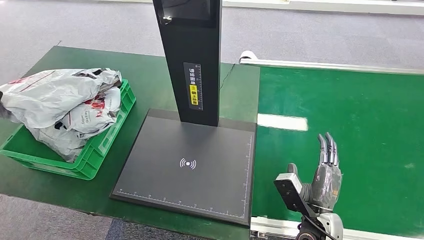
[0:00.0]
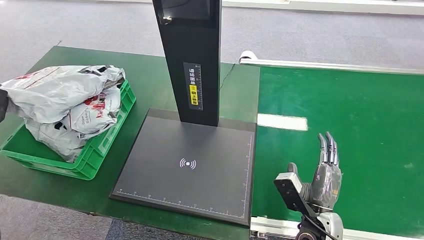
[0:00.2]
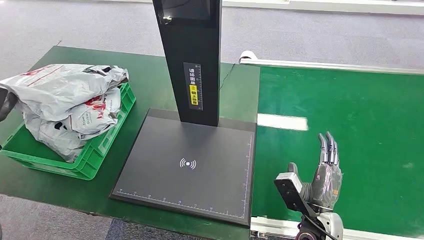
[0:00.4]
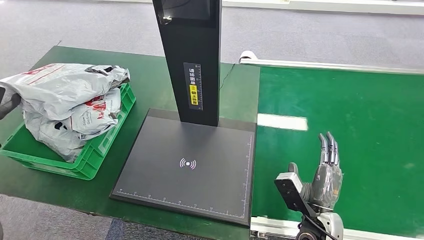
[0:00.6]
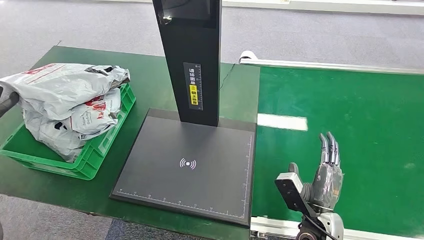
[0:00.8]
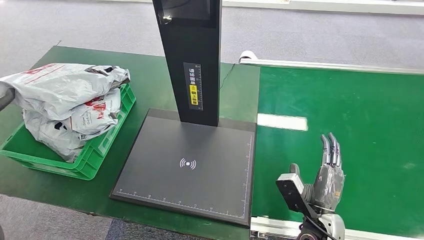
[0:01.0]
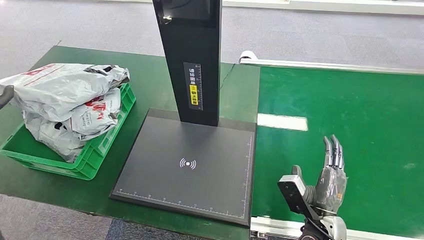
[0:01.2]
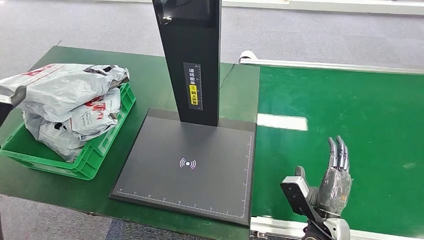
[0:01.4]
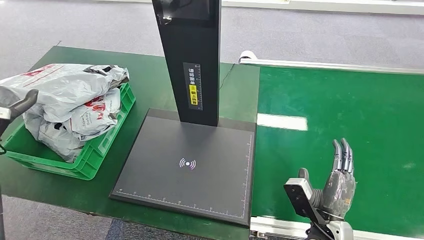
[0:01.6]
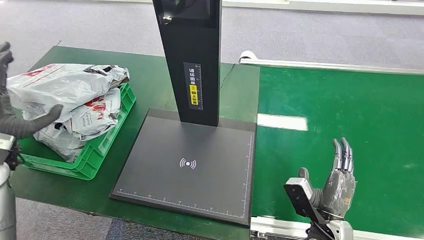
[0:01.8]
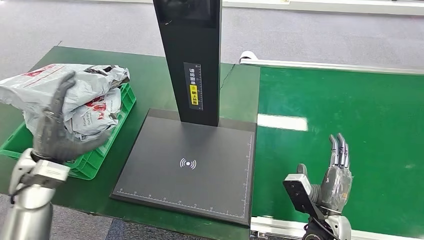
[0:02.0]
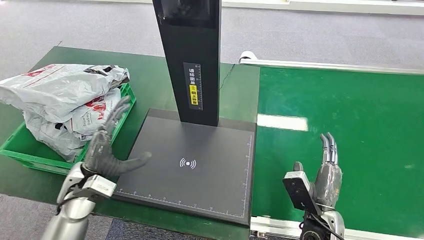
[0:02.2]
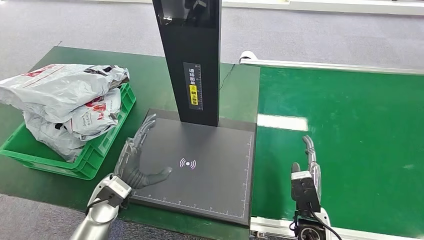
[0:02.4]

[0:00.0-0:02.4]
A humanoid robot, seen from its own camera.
Step, 0:00.0 to 0:02.4: Place the package into the parcel locker.
0:00.0 to 0:01.2: The hands stay close to where they were, moving slightly.
0:01.2 to 0:02.4: The left hand travels to the right by approximately 30 cm.
